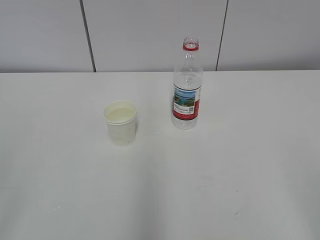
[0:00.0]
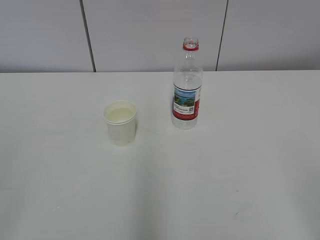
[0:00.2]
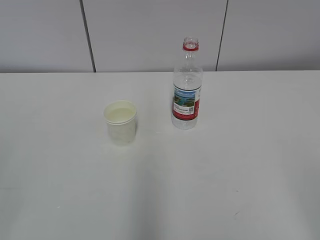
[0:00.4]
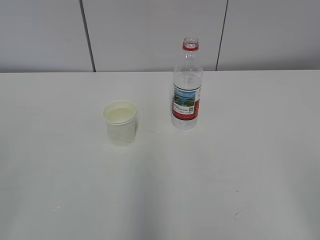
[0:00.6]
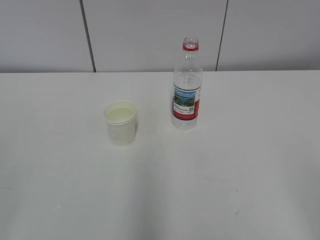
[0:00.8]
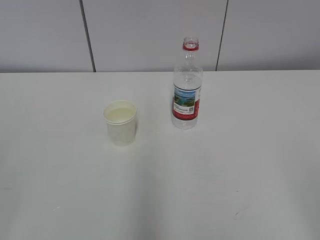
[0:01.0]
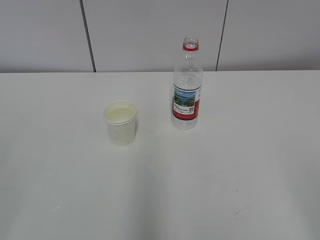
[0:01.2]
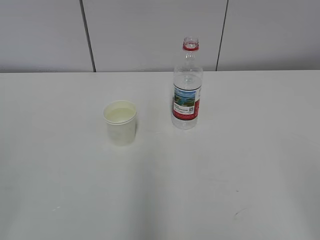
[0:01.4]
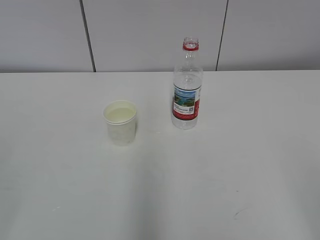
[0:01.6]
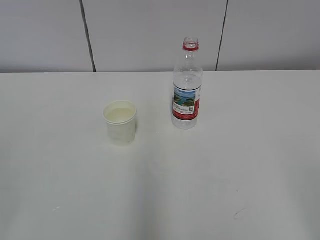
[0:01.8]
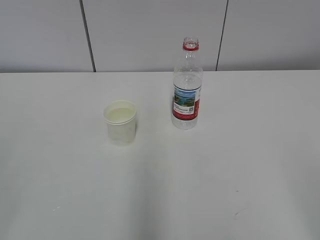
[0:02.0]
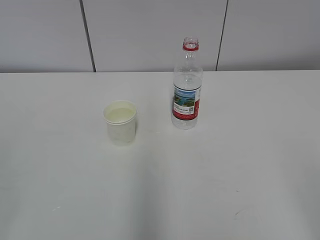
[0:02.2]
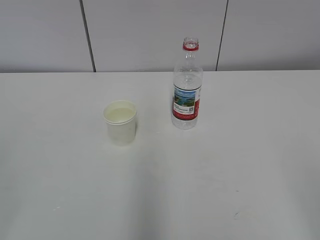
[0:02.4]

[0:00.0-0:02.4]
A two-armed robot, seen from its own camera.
0:01.2 to 0:02.4: Neither gripper changes place.

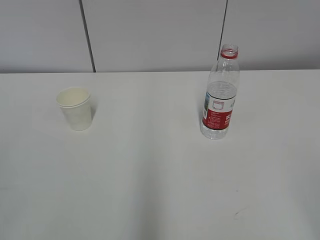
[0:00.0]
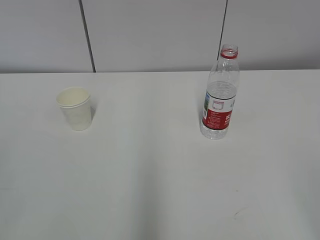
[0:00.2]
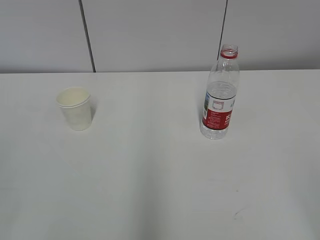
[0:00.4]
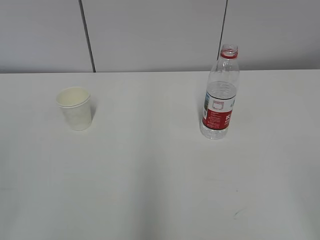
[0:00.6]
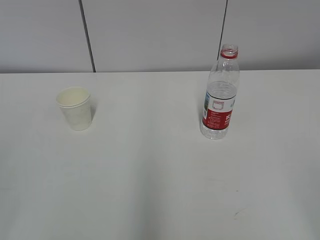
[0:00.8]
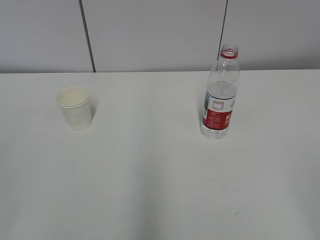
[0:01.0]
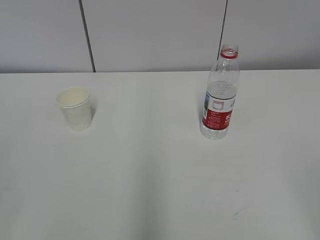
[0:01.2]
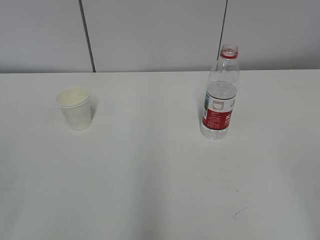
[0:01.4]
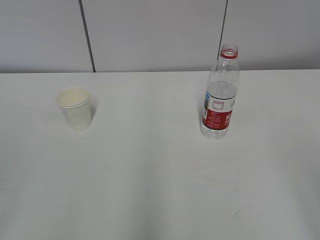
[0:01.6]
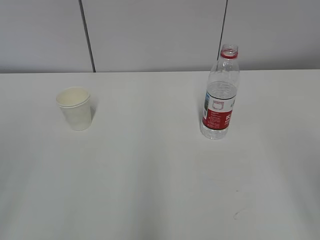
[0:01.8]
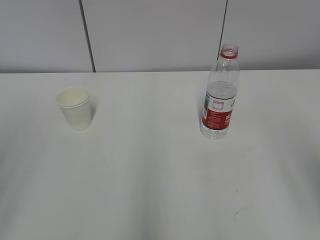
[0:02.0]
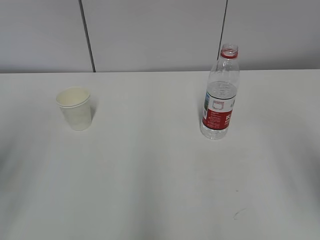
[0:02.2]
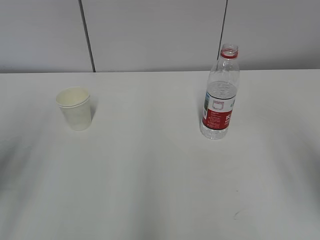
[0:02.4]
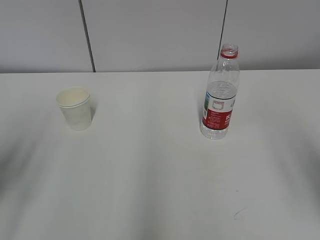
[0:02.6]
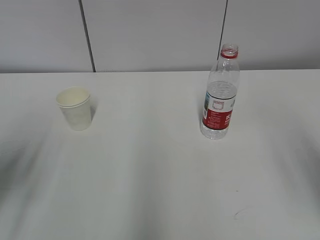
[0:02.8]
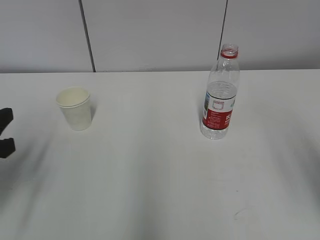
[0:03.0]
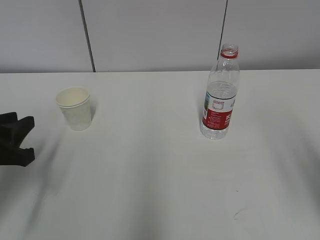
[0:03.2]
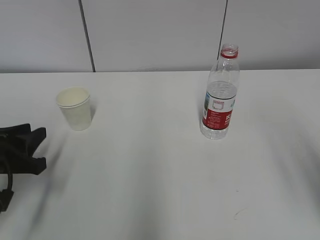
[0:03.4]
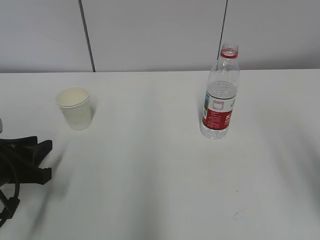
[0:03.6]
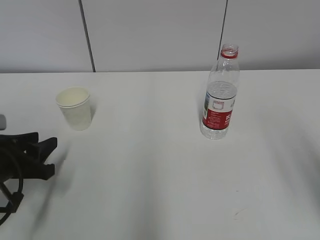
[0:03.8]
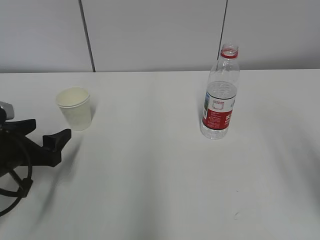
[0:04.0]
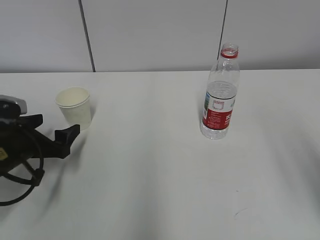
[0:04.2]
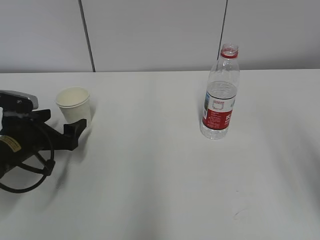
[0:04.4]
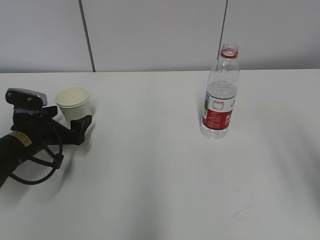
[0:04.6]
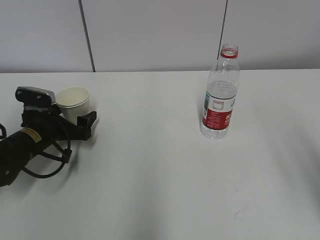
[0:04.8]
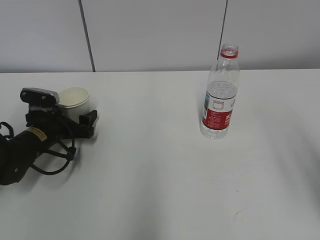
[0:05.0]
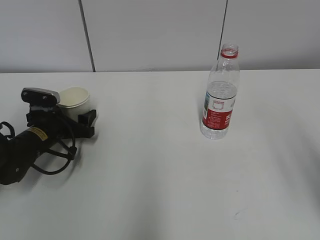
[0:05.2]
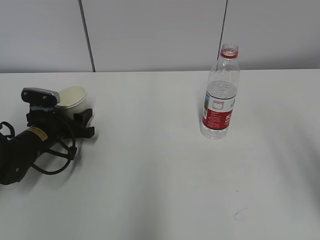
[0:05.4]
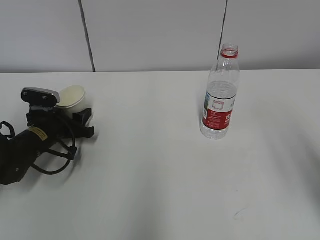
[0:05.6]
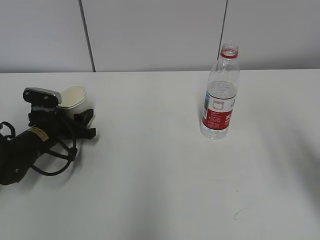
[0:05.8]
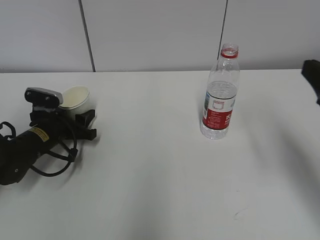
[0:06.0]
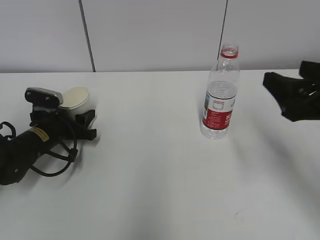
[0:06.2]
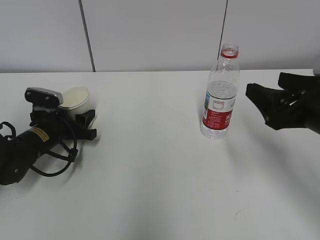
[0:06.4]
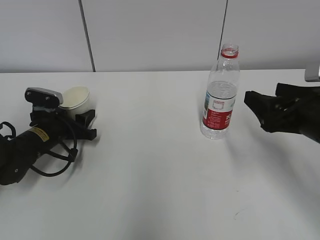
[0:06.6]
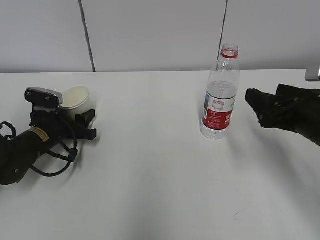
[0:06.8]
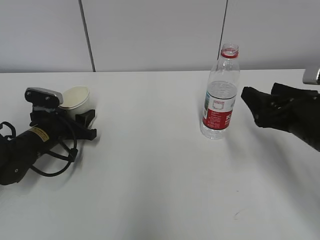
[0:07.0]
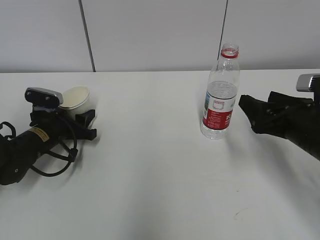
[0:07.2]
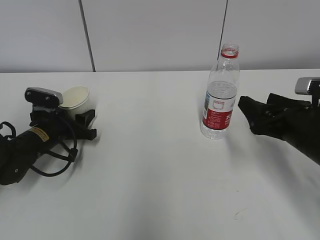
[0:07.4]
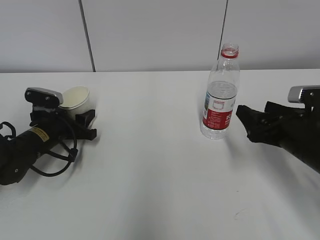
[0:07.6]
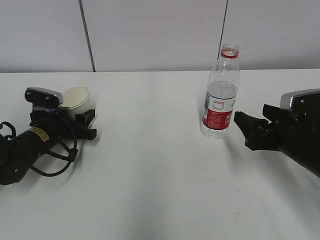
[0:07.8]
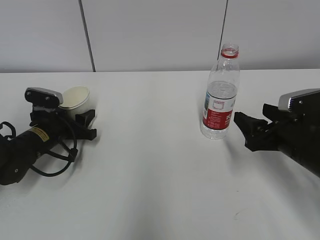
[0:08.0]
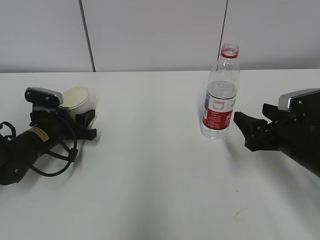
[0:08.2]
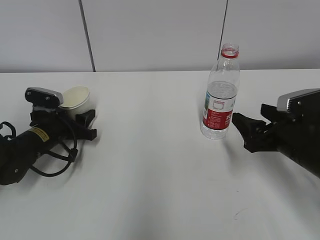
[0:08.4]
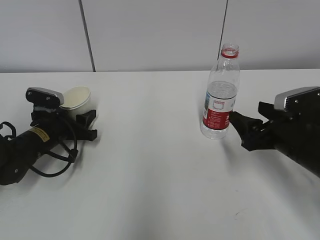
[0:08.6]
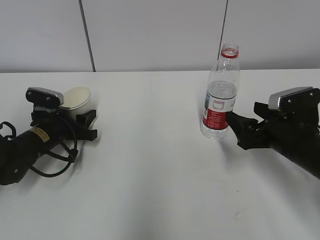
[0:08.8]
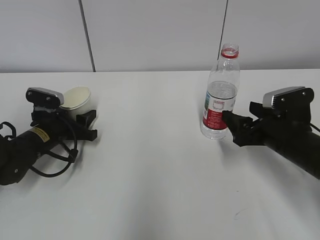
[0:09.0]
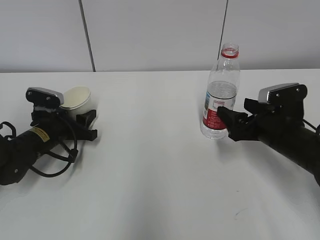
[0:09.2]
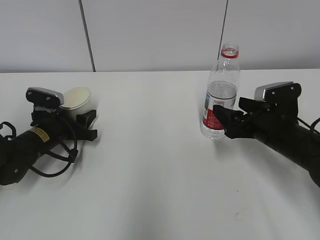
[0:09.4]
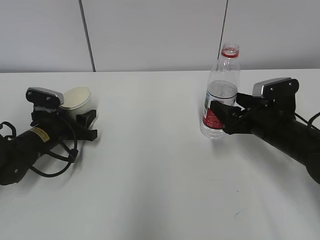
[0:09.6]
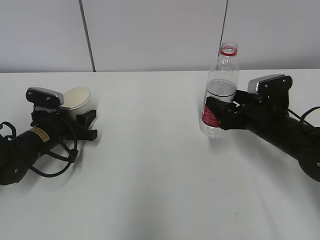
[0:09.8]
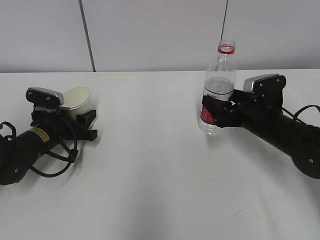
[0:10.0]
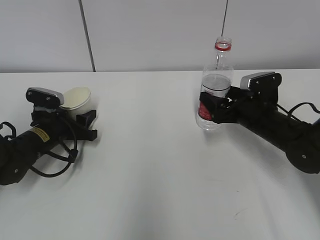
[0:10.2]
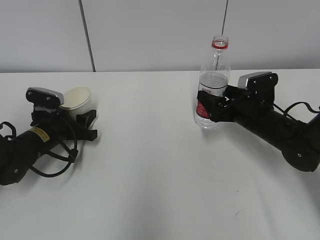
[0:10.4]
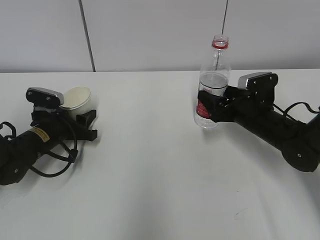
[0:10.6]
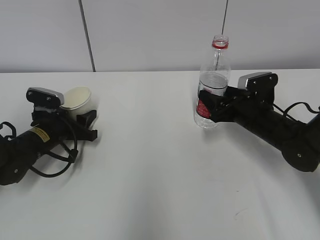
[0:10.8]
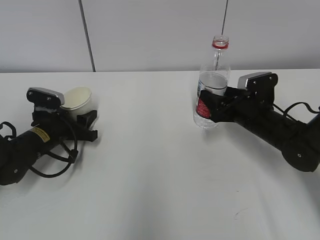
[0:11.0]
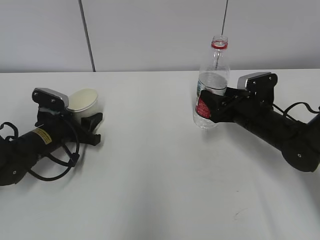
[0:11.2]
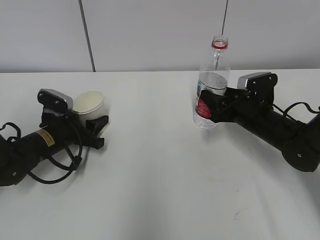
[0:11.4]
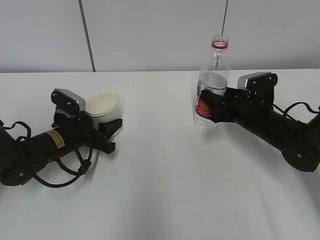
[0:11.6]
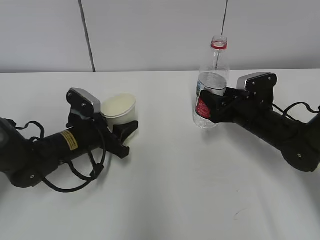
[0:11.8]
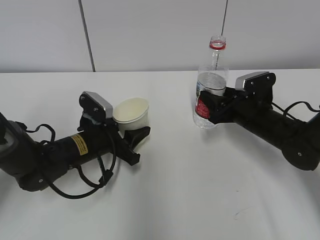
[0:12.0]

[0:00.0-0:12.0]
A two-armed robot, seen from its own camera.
Step, 0:00.0 to 0:09.0: Grab the paper cup with the left hand.
Step, 0:09.2 to 0:10.4: Grab the water bottle with the right hand.
0:01.6 to 0:03.0: The left gripper is displaced forward and downward by about 20 cm.
0:03.0 to 0:04.4: The left gripper moves forward and downward, some 15 cm, and opens up.
0:04.4 to 0:06.0: The grippers both shift forward by about 5 cm. The left gripper closes up.
0:06.0 to 0:07.6: The right gripper travels downward and forward by some 15 cm.
0:07.6 to 0:09.0: The grippers stay close to where they were, moving slightly.
0:09.0 to 0:10.4: The right gripper moves forward, approximately 10 cm.
0:10.4 to 0:12.0: The right gripper closes its fingers. Meanwhile the left gripper travels to the right by about 10 cm.

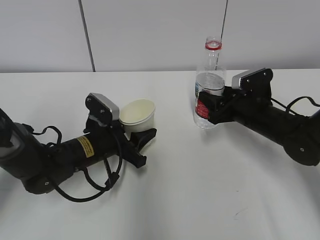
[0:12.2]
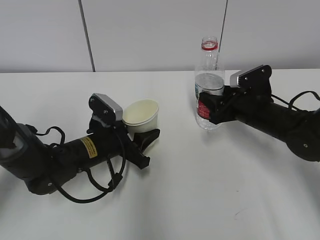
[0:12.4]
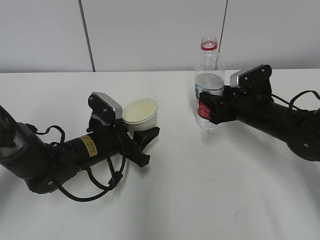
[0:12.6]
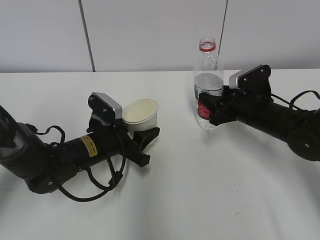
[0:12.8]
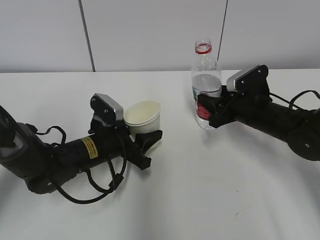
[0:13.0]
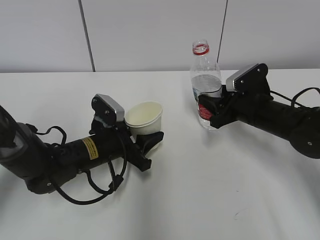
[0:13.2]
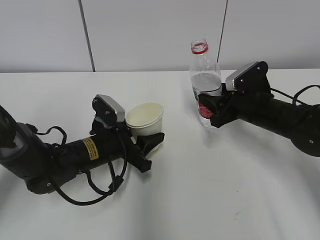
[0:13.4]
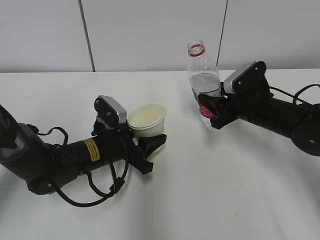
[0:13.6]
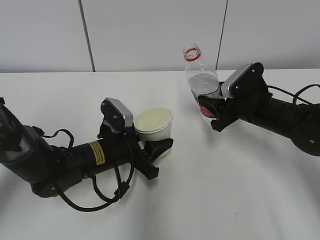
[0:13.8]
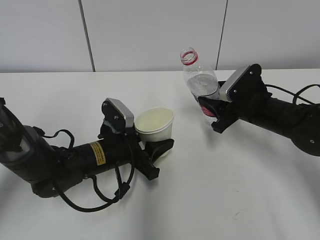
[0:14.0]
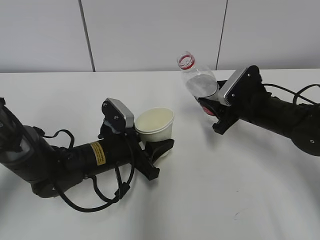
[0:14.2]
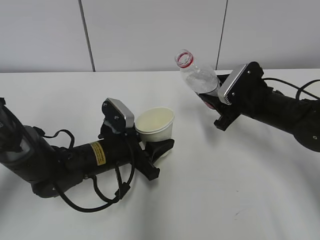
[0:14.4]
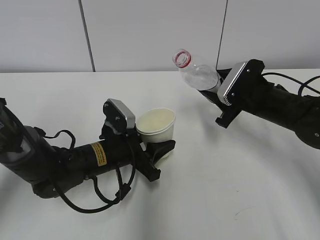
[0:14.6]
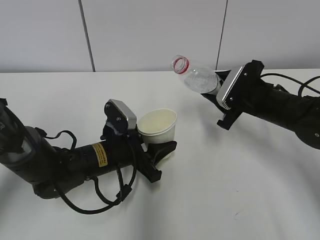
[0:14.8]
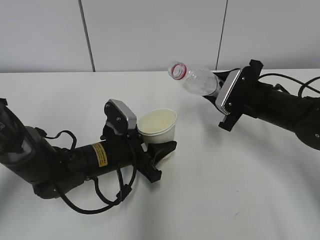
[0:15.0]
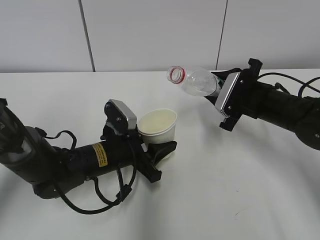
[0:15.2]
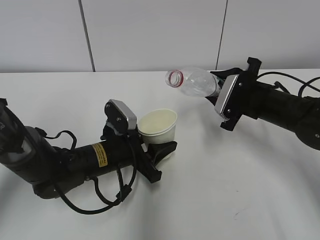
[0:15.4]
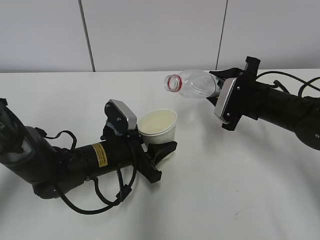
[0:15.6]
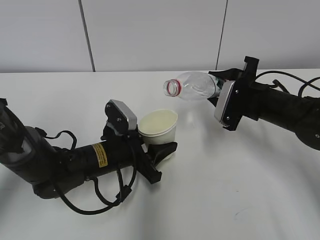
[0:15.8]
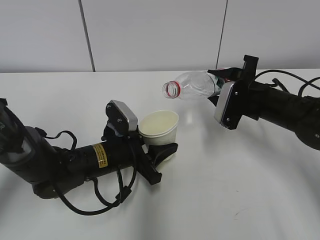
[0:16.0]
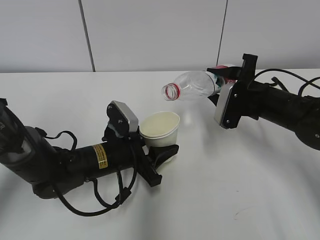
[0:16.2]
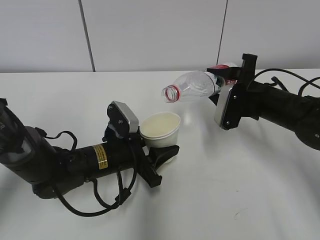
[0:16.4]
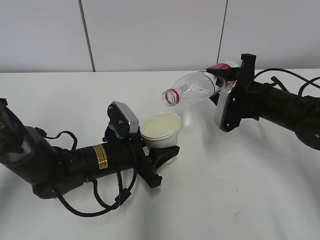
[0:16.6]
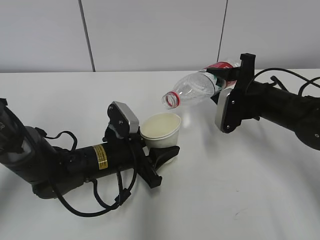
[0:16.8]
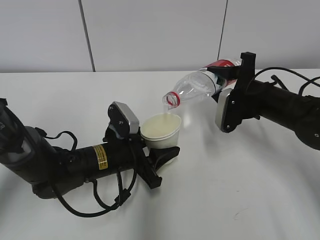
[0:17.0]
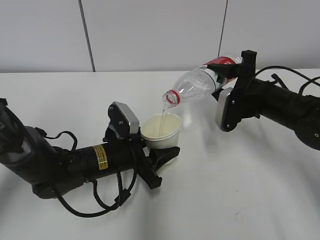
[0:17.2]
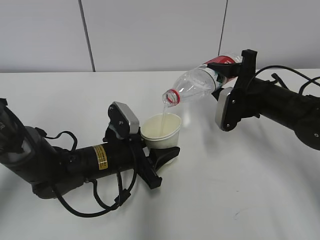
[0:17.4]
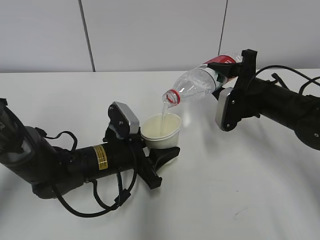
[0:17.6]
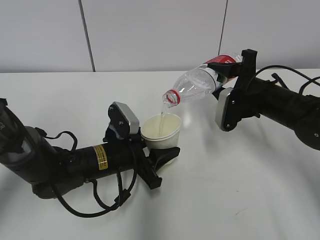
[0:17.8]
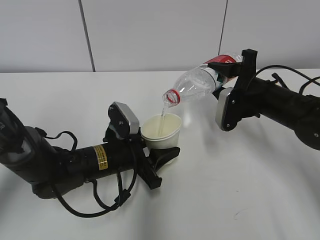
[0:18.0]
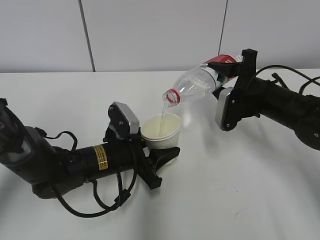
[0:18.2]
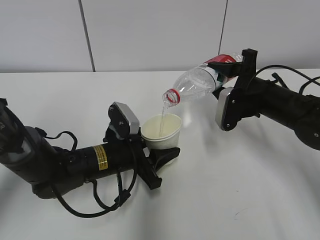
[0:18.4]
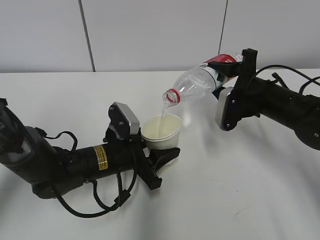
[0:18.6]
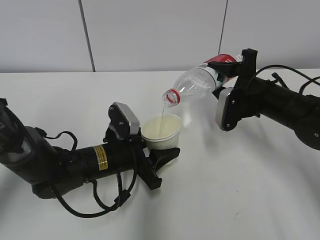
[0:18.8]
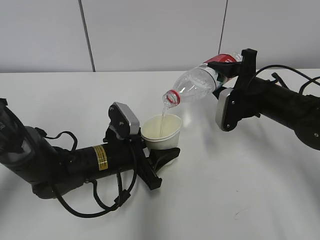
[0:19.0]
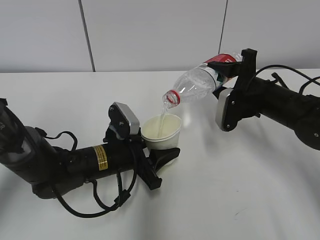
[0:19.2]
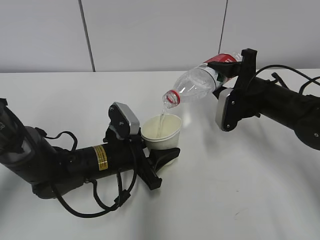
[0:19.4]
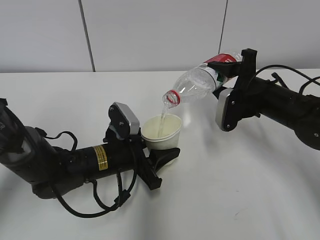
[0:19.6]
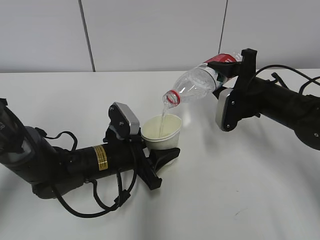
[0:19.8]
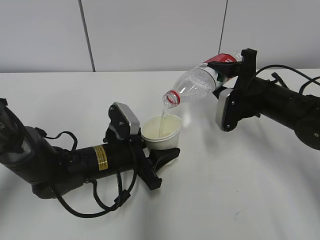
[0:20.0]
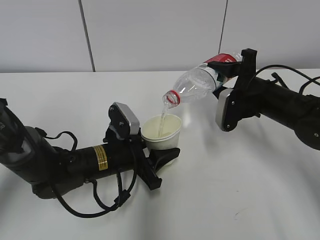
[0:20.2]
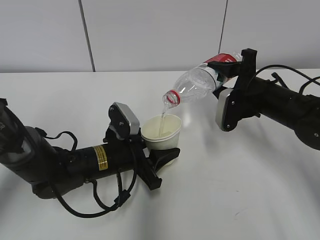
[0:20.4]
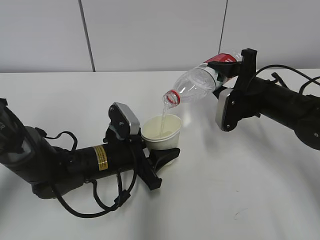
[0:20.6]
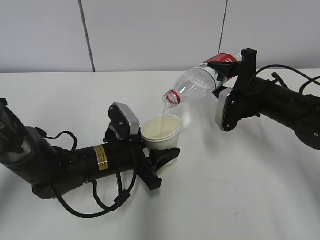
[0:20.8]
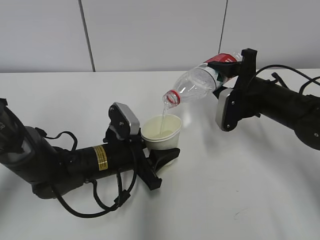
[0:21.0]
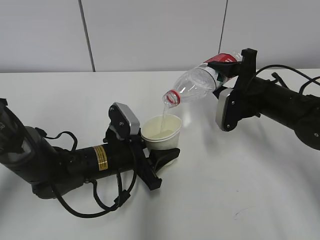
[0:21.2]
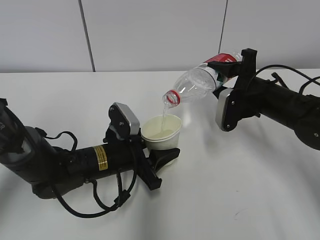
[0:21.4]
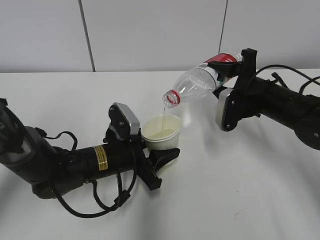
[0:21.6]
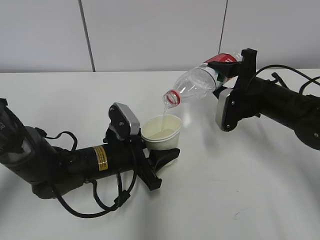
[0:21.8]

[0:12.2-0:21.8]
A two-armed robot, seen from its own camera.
Step, 0:12.2 to 0:14.0: Lift the paper cup with the left hand.
Step, 0:14.2 to 0:18.8: Fill water with the left hand.
Step, 0:14.2 to 0:18.8: Pour water with the right hand.
0:17.0 to 0:21.8: The two grippers keep their place.
